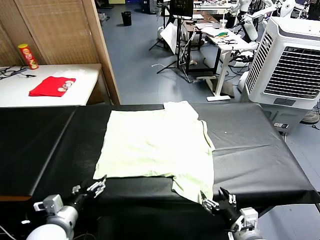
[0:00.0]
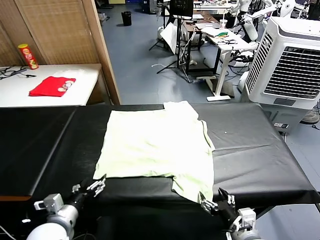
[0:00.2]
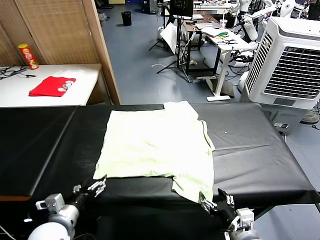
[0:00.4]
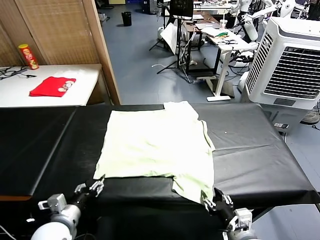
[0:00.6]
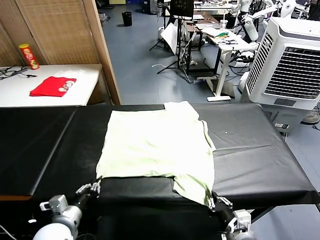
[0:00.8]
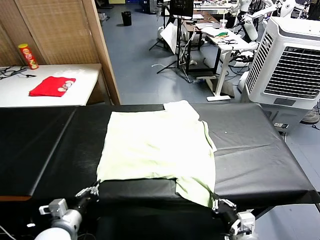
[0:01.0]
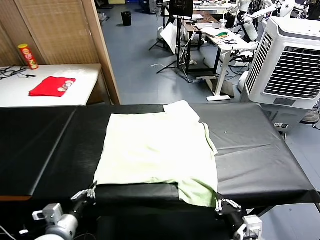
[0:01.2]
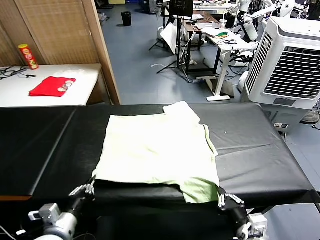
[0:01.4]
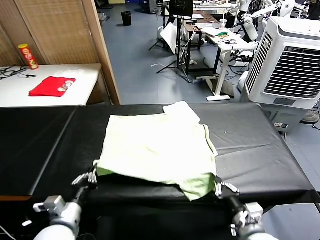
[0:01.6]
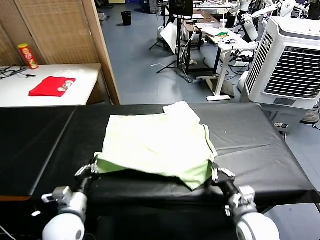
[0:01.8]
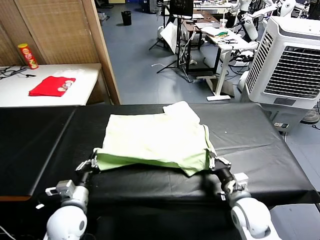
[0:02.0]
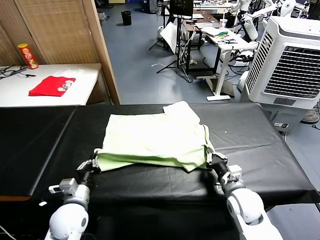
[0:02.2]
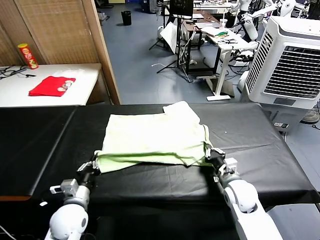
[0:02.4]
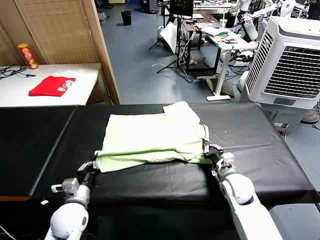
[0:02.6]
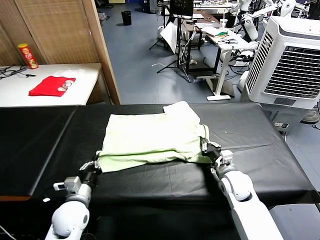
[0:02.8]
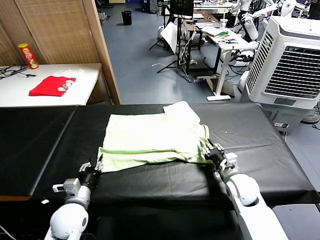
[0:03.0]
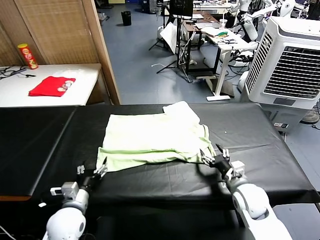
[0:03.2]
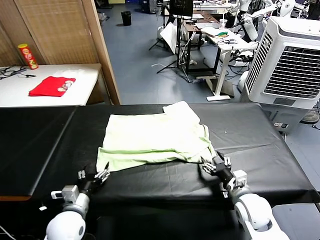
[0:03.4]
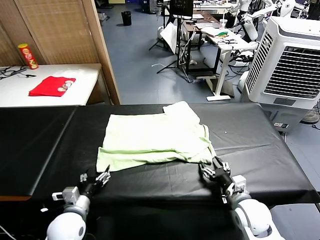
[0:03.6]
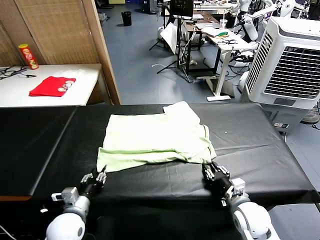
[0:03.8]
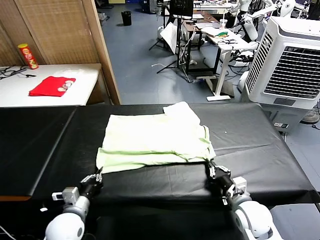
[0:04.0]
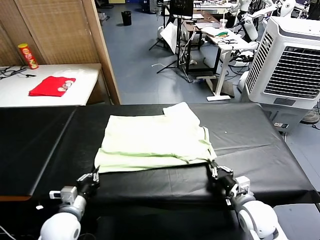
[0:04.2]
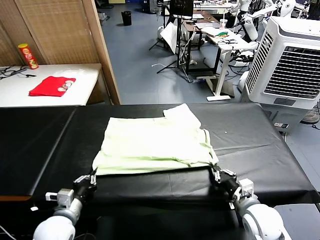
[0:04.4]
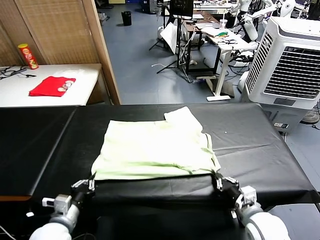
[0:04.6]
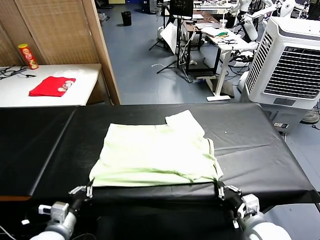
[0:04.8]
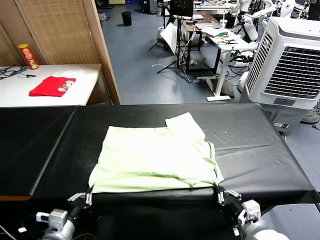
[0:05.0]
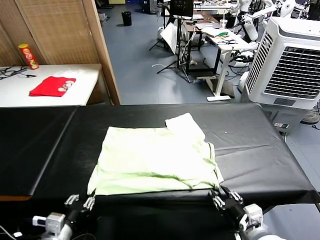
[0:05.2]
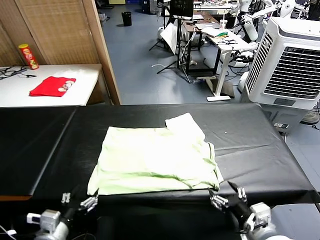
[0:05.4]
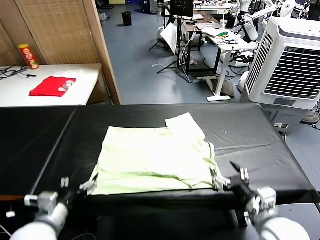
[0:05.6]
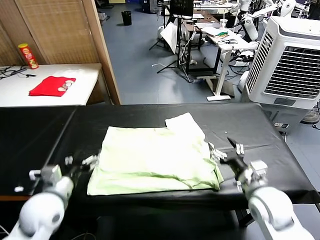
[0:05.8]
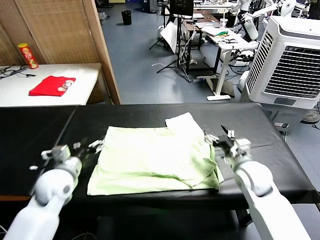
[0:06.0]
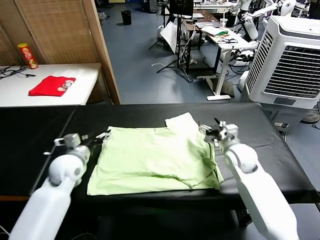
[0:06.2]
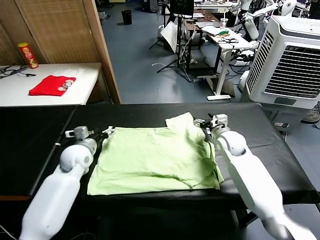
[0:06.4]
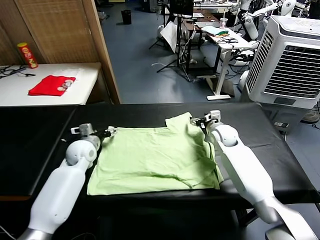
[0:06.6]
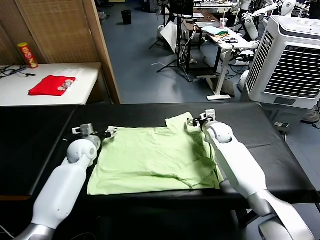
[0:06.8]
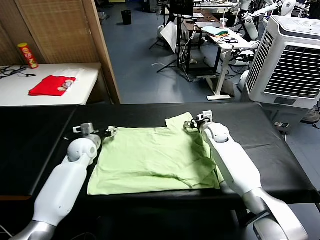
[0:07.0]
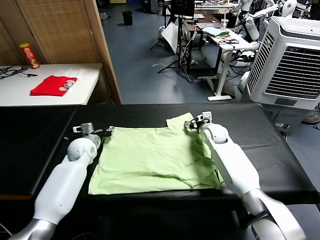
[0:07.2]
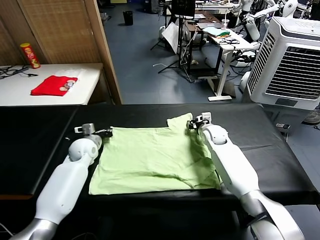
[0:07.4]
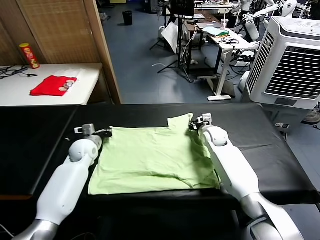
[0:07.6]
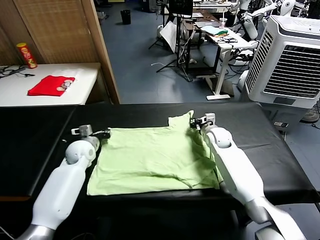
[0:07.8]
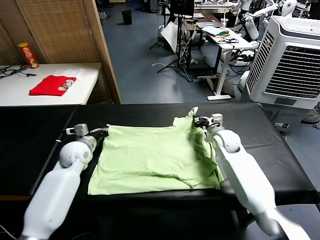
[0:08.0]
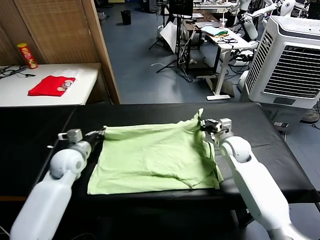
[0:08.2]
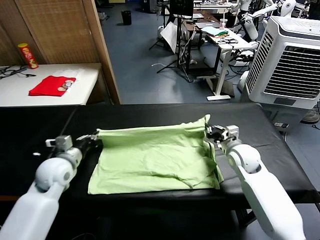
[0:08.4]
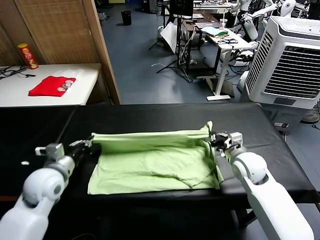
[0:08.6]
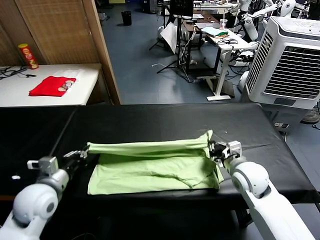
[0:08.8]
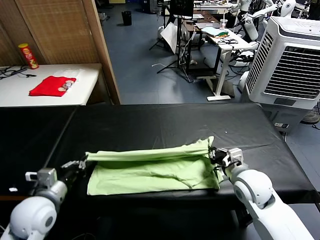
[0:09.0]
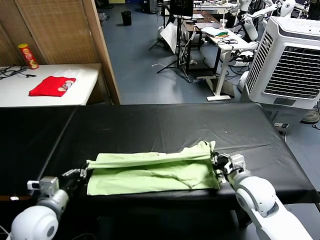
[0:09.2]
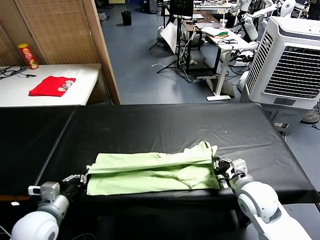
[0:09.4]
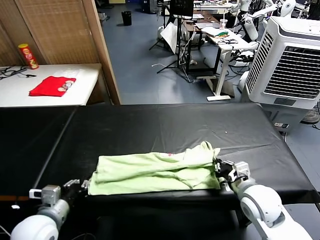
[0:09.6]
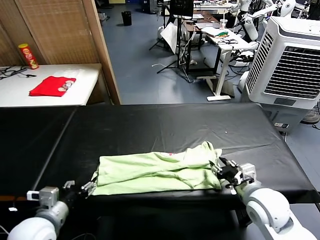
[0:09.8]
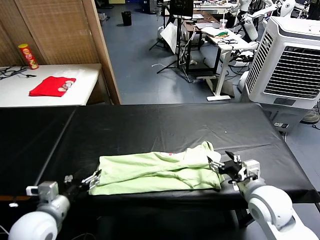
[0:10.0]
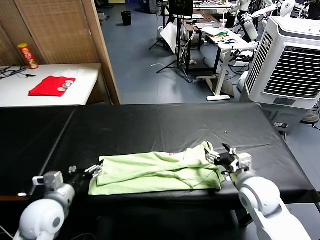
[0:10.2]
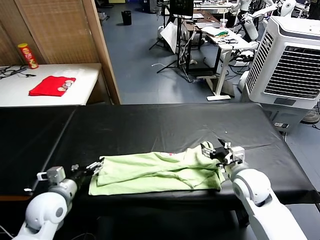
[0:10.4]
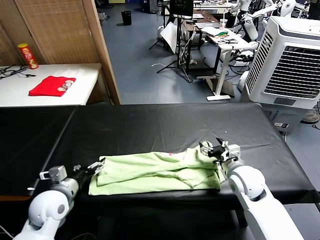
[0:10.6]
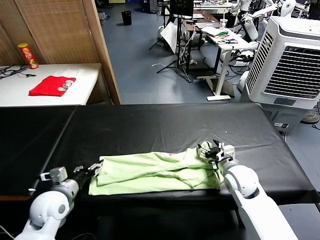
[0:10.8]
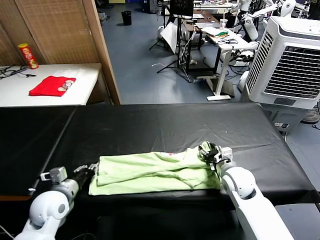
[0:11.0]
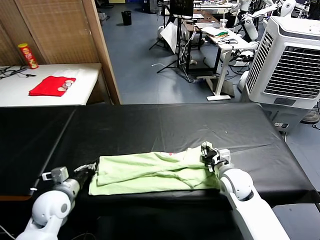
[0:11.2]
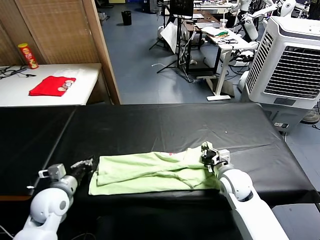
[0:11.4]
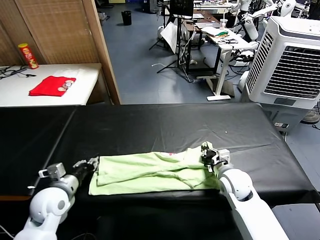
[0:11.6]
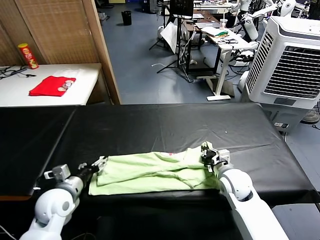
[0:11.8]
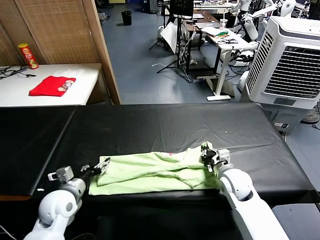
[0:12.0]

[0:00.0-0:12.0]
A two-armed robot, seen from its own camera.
Task of the whole recording: fold and organize the clothes.
Step, 0.0 to 0.8 s: use both grippers simultaneously to clamp the lower edge of the clothing fabric.
Step, 1.2 to 3.0 s: use both grippers to drag the lower edge of the fabric forward and fold it over the upper edge.
Step, 3.2 to 5.2 s: Drag the clothes downward with both gripper.
Step, 5.6 to 7.4 s: use both grippers simultaneously to clamp the upper edge of the clothing fabric.
Step, 7.6 to 9.8 s: use both grippers to drag the upper edge of the fabric backward and fold it over the lower edge.
1.6 to 3.0 s: The right gripper shifts some 10 cm forward, and opens up. Meanwhile the left gripper heads forward, covering approximately 5 cm, and opens.
3.0 to 4.4 s: The left gripper closes. Meanwhile the right gripper travels backward by some 10 cm, and closes.
4.4 to 6.0 s: The right gripper goes approximately 20 cm forward, and opens its fingers, while the left gripper heads forward and upward, covering approximately 15 cm, and opens.
6.0 to 7.6 s: The left gripper moves forward and downward, roughly 15 cm, and closes its fingers; the right gripper shifts about 15 cm forward, and closes.
7.6 to 9.0 s: Both grippers move backward, some 25 cm.
9.0 to 10.4 s: The right gripper goes backward and returns, approximately 5 cm each way, and opens its fingers; the left gripper opens.
10.4 to 12.0 s: The right gripper is displaced downward by roughly 5 cm, and closes. The left gripper closes and opens again.

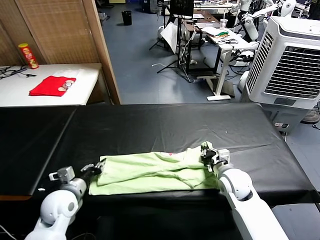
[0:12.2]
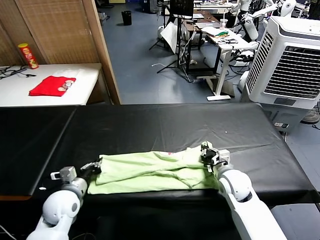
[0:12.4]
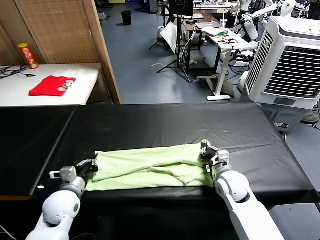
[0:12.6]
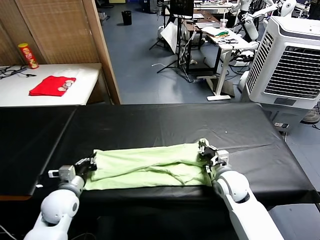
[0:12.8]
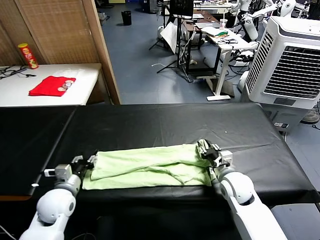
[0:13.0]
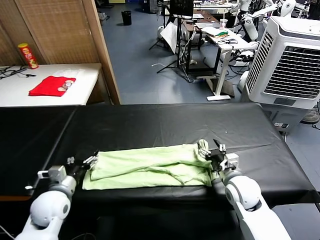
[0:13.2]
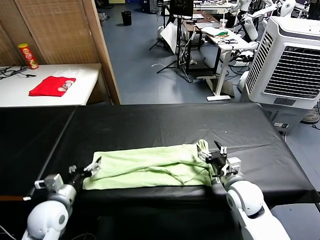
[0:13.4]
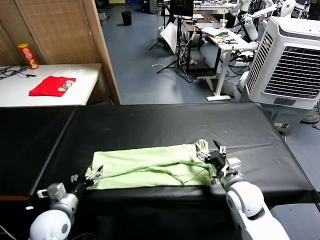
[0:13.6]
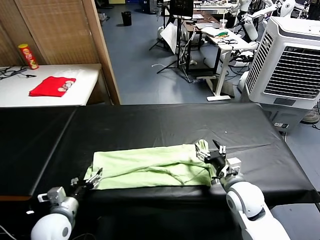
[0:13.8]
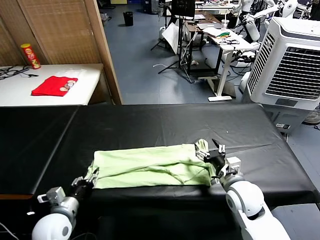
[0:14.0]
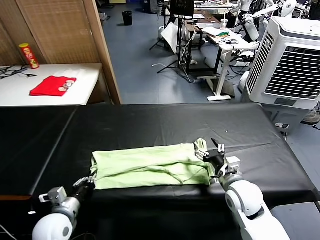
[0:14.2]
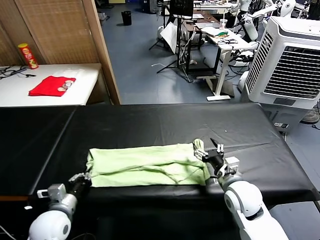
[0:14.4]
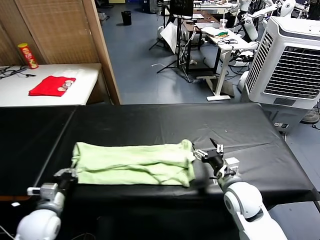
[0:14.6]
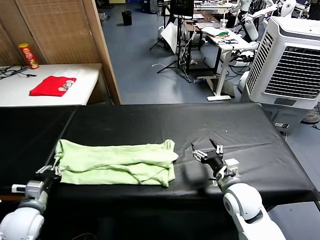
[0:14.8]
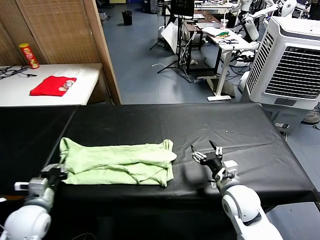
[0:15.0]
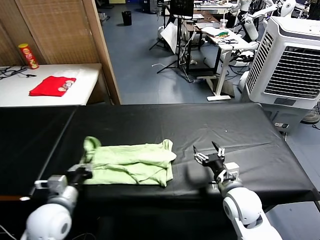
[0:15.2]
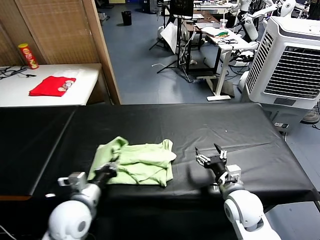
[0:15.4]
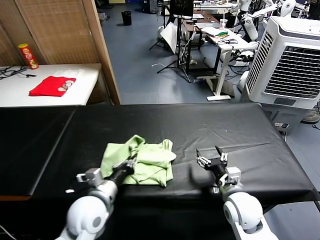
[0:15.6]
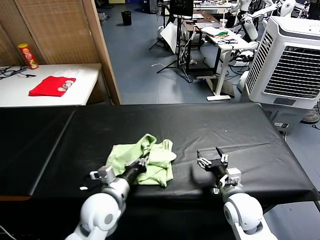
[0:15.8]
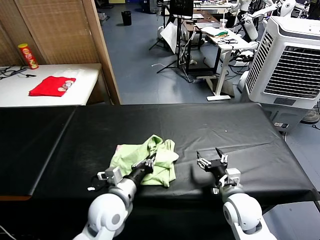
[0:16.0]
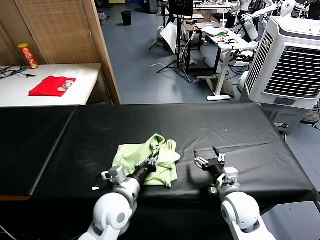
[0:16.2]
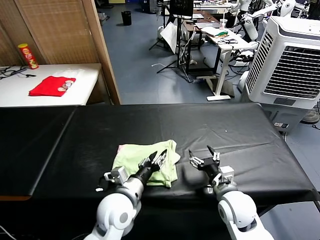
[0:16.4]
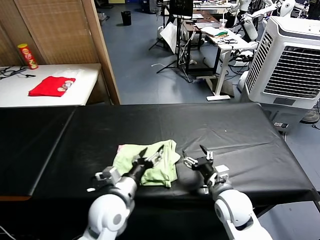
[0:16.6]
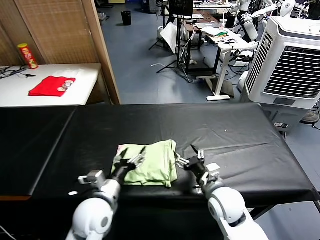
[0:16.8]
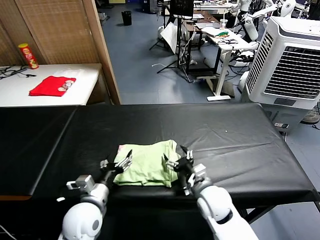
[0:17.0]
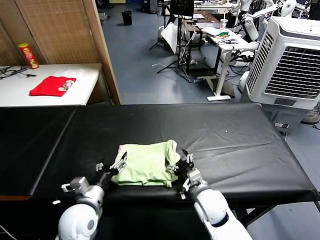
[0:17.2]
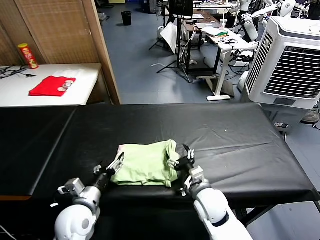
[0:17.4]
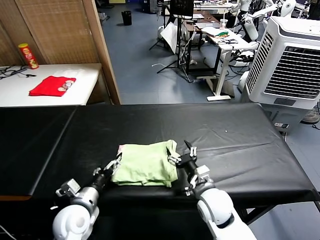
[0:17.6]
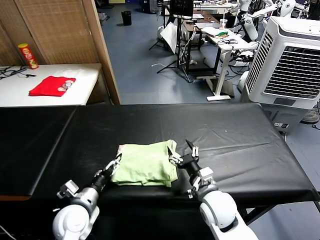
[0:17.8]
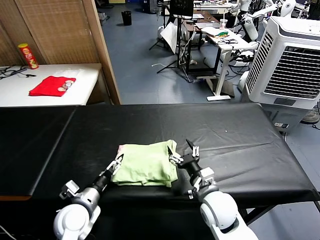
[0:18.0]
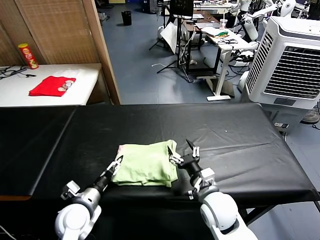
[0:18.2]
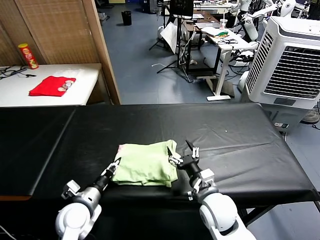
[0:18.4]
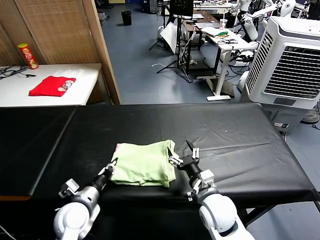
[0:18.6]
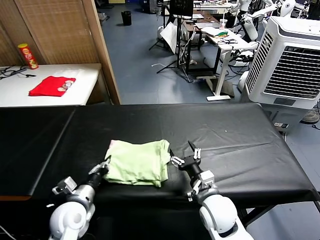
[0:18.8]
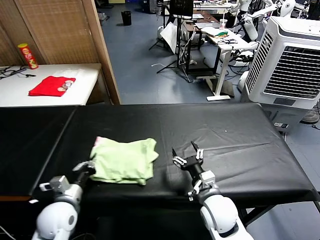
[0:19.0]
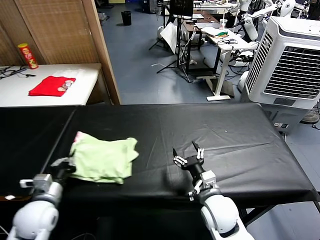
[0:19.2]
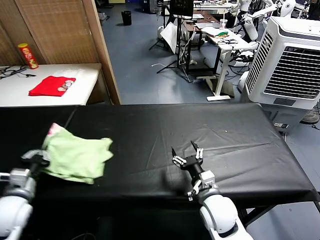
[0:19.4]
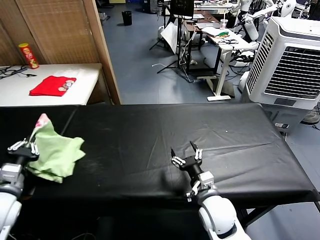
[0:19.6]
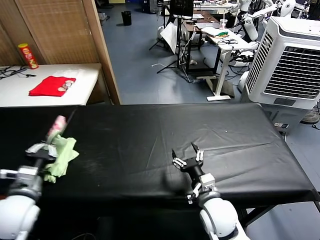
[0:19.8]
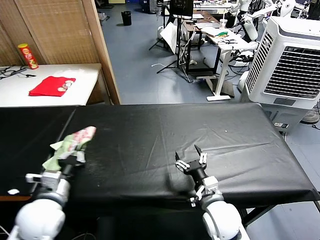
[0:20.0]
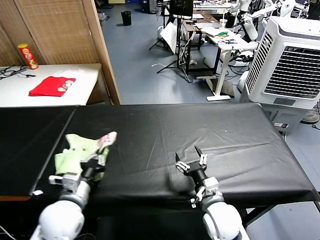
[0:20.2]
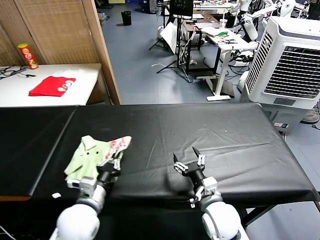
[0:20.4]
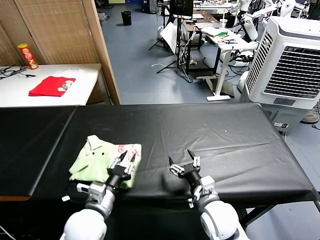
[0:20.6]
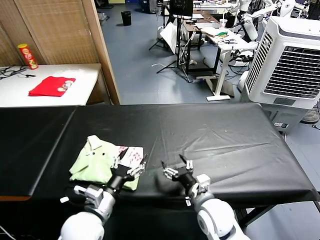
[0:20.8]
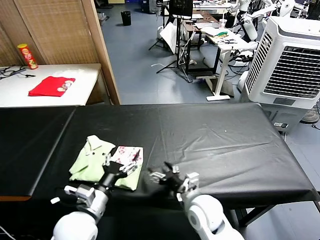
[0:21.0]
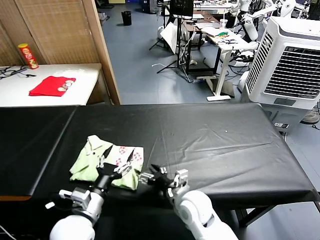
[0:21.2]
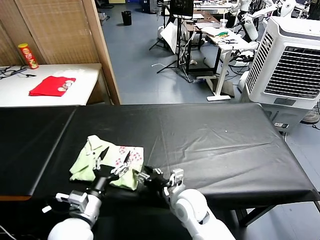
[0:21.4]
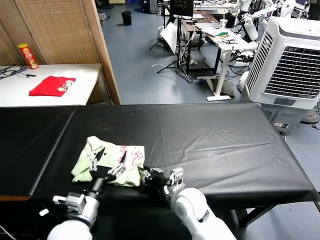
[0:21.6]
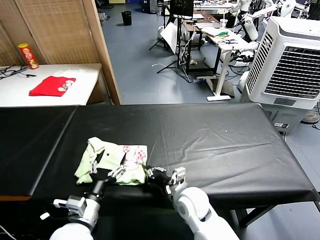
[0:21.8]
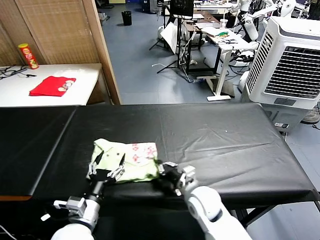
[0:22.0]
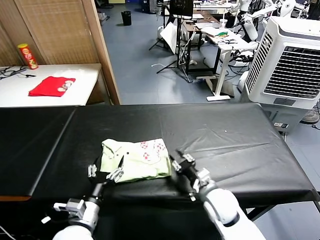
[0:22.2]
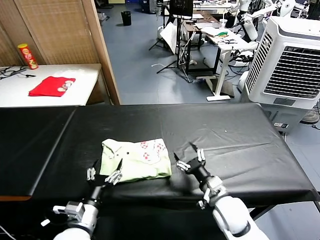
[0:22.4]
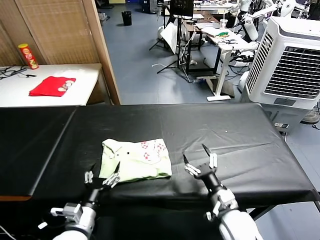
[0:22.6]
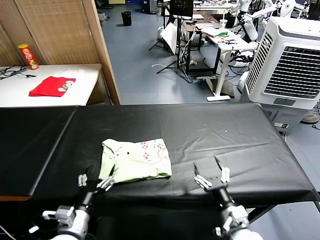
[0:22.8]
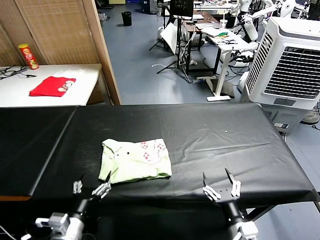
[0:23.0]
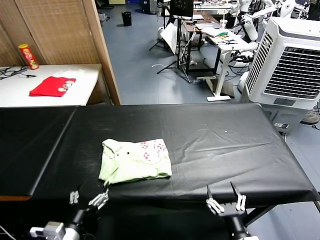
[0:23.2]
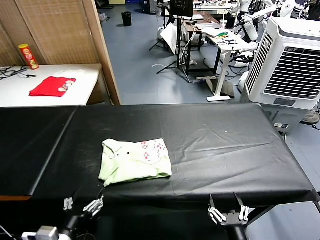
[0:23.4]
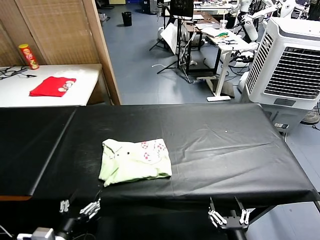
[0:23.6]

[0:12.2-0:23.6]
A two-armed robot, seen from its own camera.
Task of the whole recording: fold and organize the clothes.
Step, 14.4 to 16.4 s: use the left gripper to drag the left edge of the fabric to the left and folds it over the right edge.
Step, 16.8 to 20.6 s: Flip the folded clothes over with left gripper.
Step, 20.8 to 22.2 s: Drag the clothes to the center of the table.
12.2 to 13.6 s: The two grippers go some 5 cm backward. The left gripper opens its fingers. Meanwhile the right gripper opens its fingers.
13.6 to 15.0 s: The left gripper shifts by approximately 5 cm, and closes its fingers.
15.0 to 16.4 s: The left gripper goes some 25 cm to the right, and opens up.
16.4 to 17.8 s: The right gripper goes some 5 cm to the left; the left gripper shifts about 15 cm to the left, and opens its fingers.
17.8 to 19.4 s: The left gripper heads to the left and upward, covering approximately 15 cm, and closes up.
19.4 to 20.8 s: The left gripper moves to the right, roughly 20 cm, and opens.
20.8 to 22.2 s: The right gripper travels to the left and back again, some 5 cm each way, and closes.
22.2 to 23.6 s: The left gripper goes about 10 cm backward; the right gripper goes about 25 cm backward, and opens its fingers.
